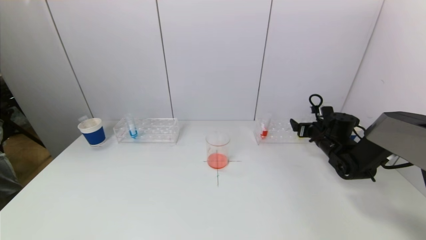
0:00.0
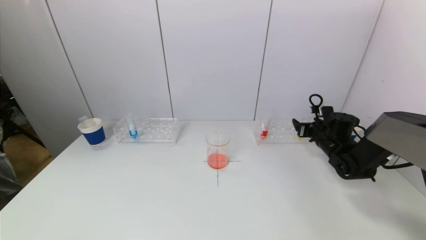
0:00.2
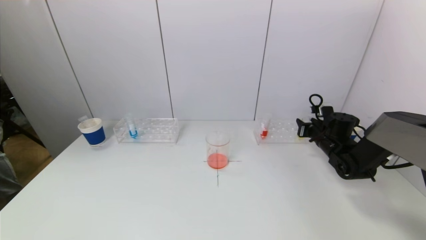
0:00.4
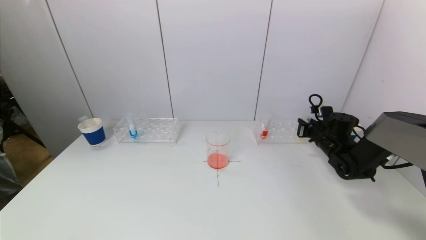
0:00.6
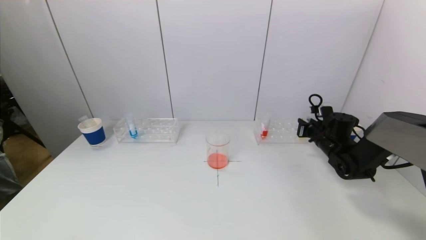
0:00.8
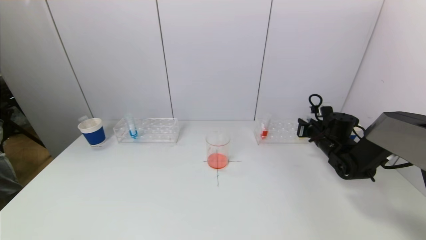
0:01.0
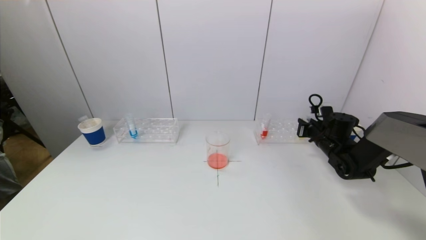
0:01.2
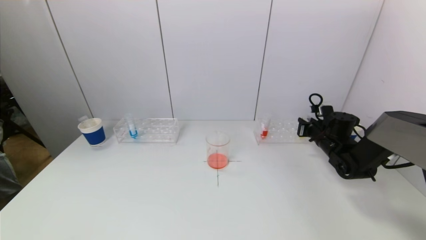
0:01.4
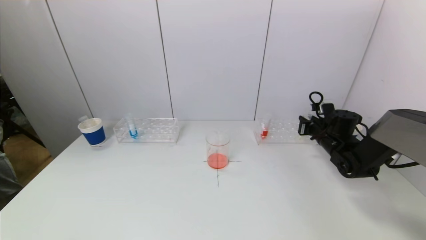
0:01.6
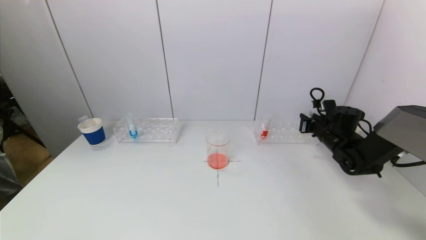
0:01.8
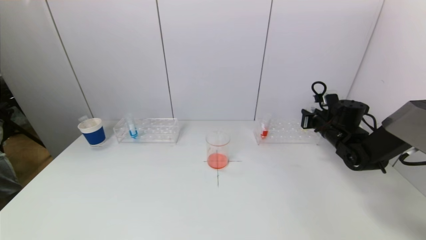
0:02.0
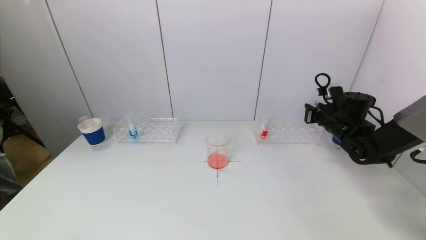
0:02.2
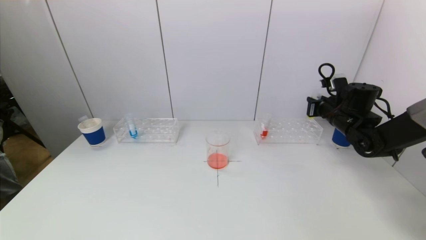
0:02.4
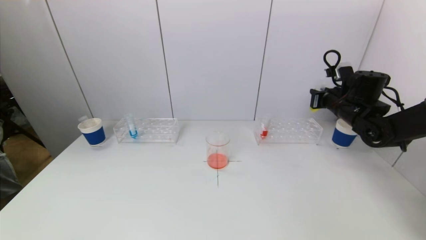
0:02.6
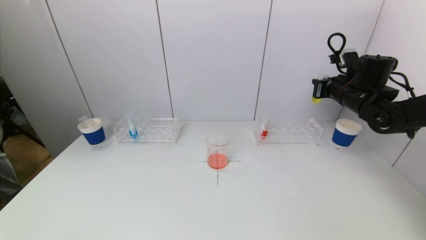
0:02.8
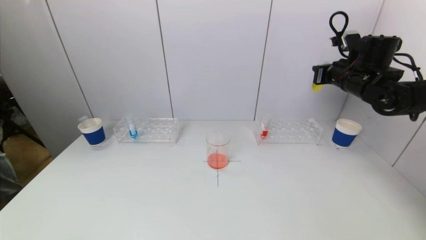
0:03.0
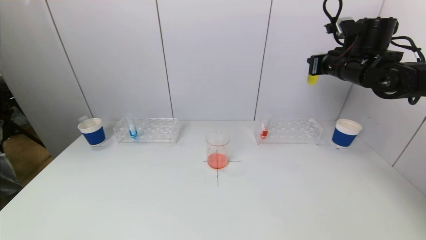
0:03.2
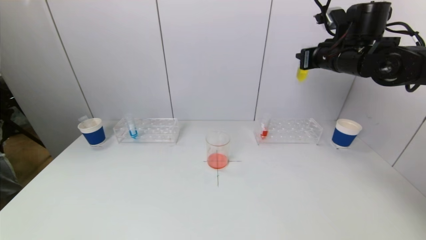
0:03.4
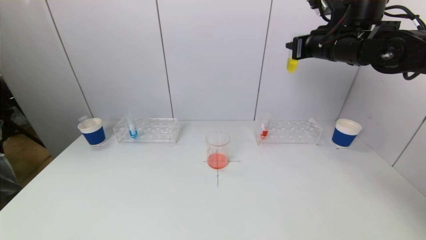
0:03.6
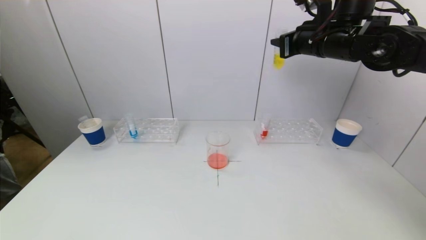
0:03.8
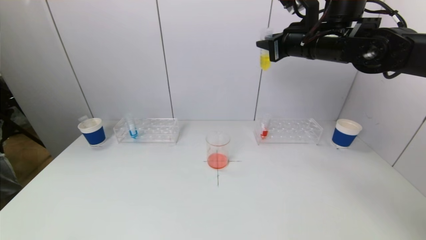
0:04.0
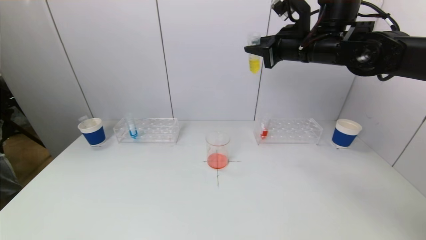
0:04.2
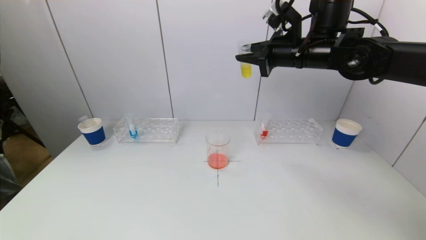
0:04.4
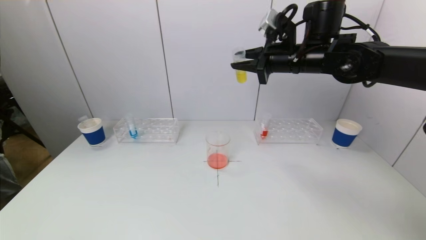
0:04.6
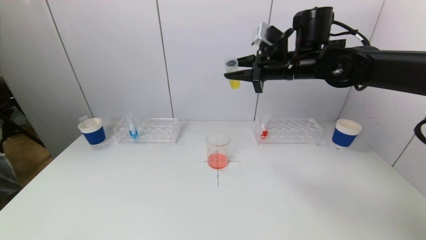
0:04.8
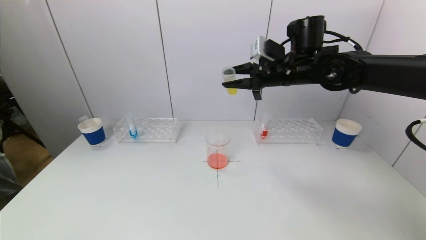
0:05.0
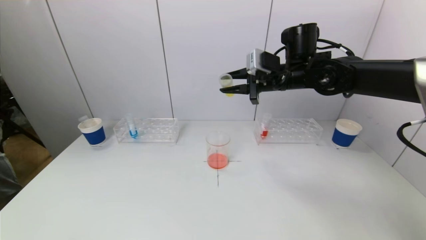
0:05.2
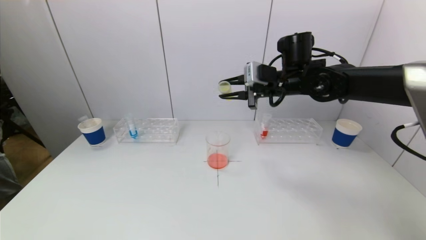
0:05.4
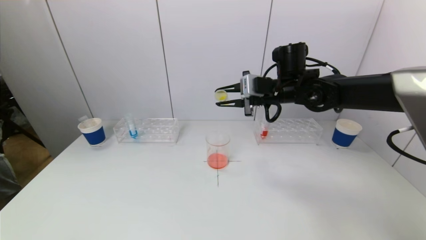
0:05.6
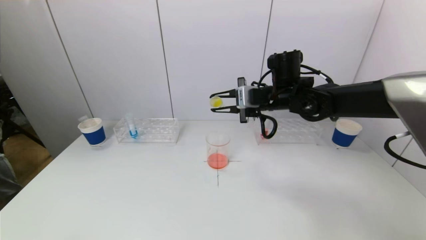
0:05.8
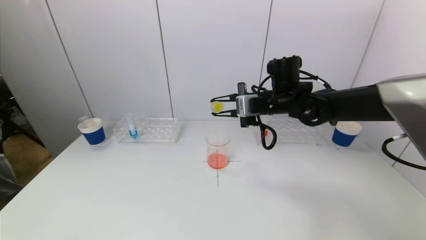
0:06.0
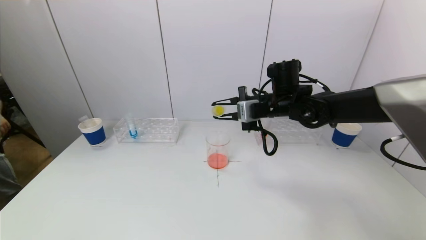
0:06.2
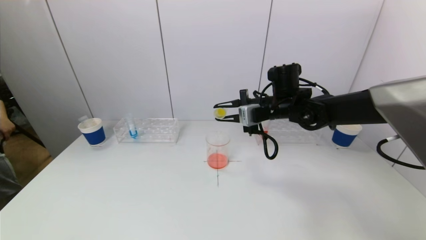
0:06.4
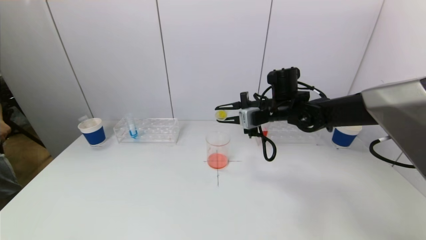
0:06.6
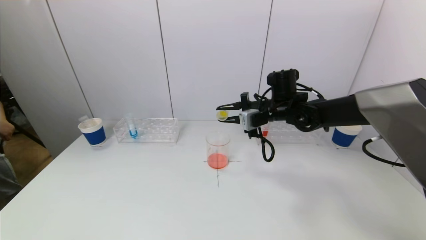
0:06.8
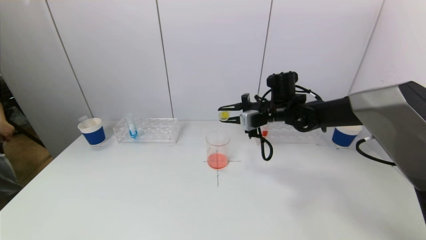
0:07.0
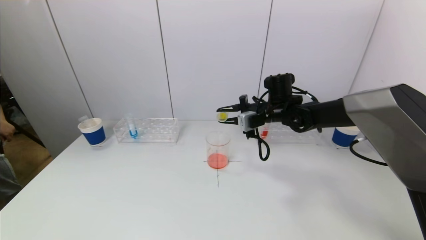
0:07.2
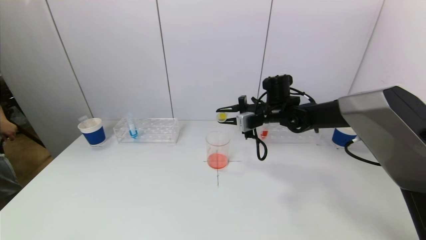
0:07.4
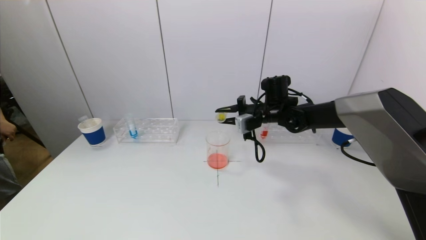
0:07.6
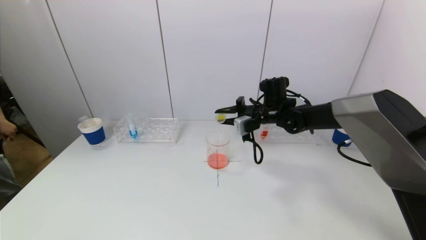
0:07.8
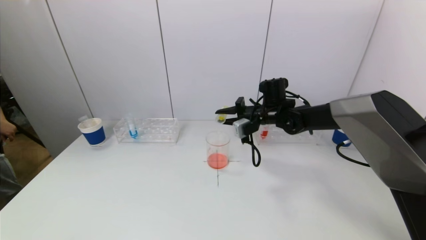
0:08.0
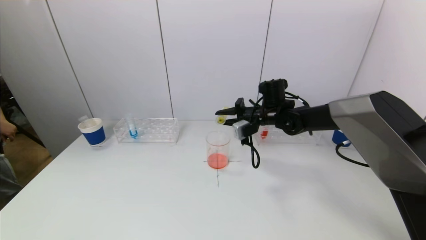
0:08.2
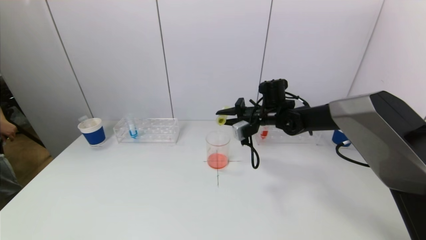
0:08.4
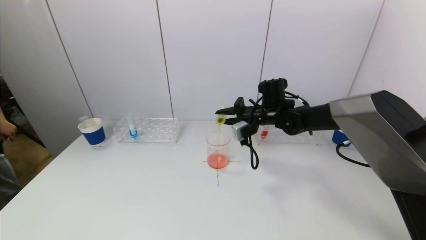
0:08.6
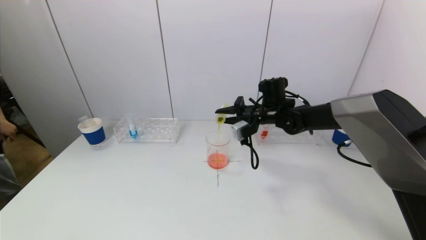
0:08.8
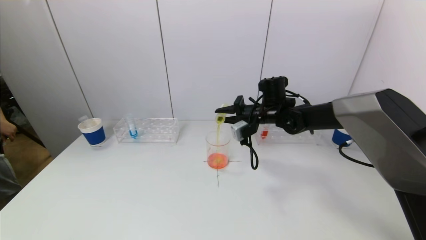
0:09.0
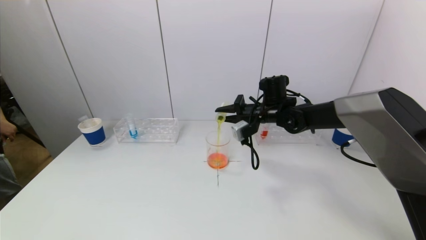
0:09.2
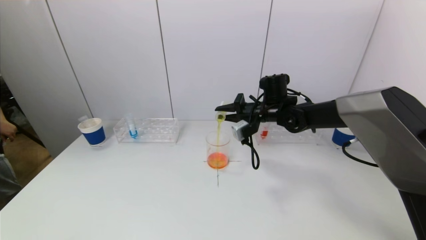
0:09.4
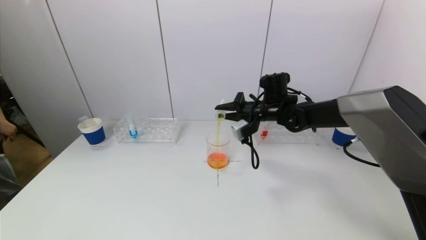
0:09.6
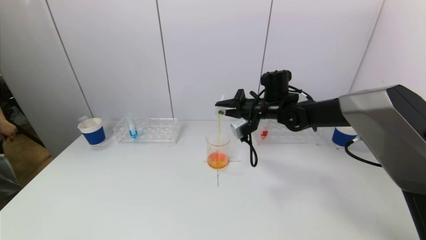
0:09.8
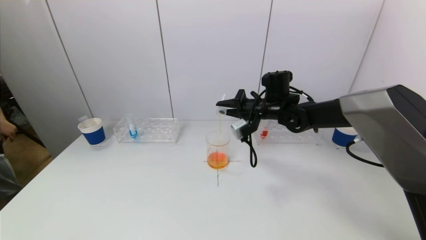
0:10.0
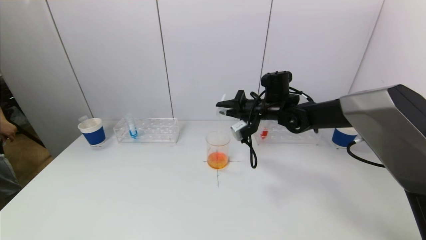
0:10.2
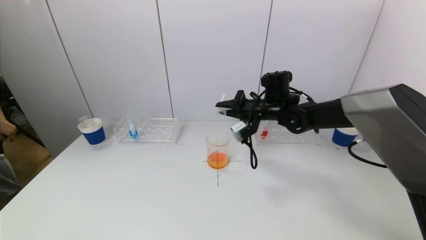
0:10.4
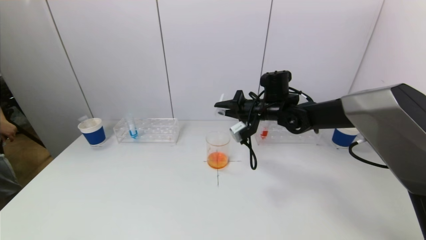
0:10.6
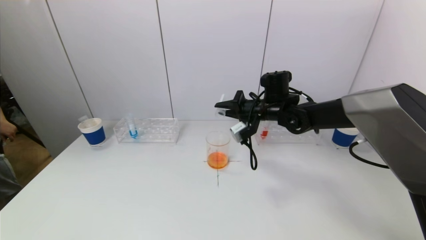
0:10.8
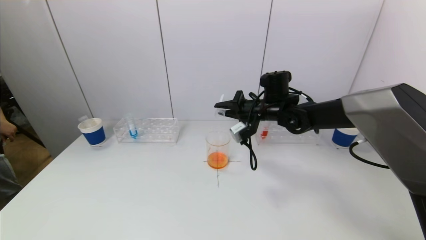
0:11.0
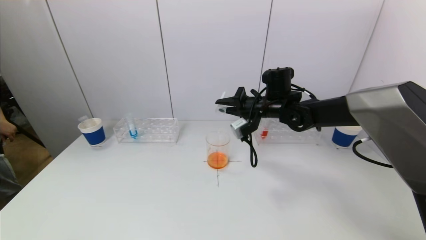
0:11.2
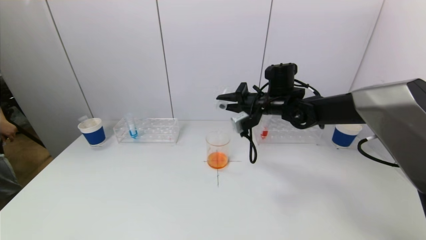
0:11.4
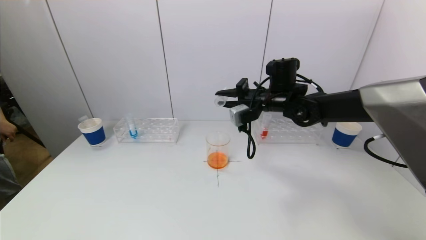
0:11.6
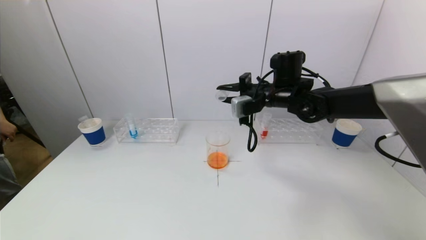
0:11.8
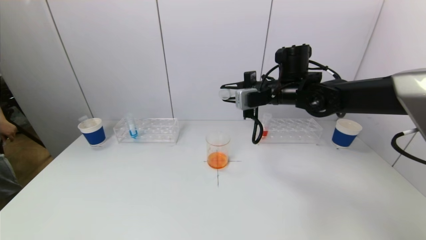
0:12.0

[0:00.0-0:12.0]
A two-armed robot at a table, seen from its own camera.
Task of the whole recording: pick up a test tube with pigment on left test tube rack and a test tube with pigment on right test tube rack by grippers and pour them into the beaker.
Step, 0:01.2 to 0:11.4: Pour the yellow reagent into the graduated cylinder with the right gripper.
0:00.0 to 0:01.6: The right gripper closes its fingers.
0:01.6 to 0:03.0: The right gripper heads upward, covering some 20 cm.
0:03.0 to 0:04.4: The right gripper travels to the left and upward by approximately 15 cm.
0:04.4 to 0:06.0: The right gripper goes approximately 10 cm downward.
0:06.0 to 0:07.6: The right gripper moves downward and forward, some 10 cm.
0:07.6 to 0:09.0: The grippers stay close to where they were, moving slightly.
0:09.0 to 0:10.4: The grippers move only a little.
0:10.4 to 0:12.0: The right gripper moves upward, roughly 5 cm.

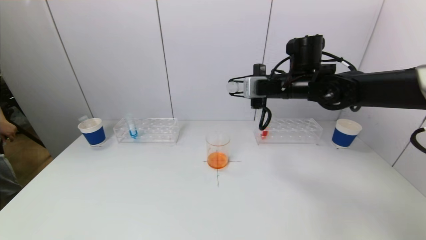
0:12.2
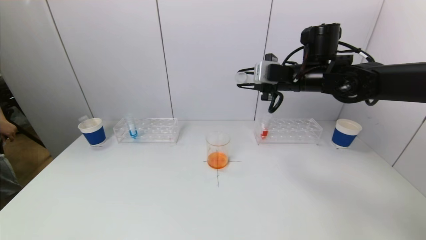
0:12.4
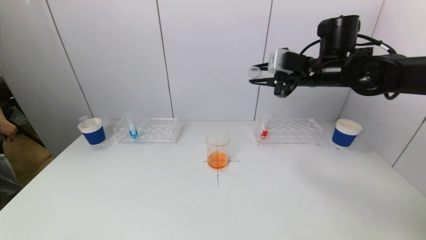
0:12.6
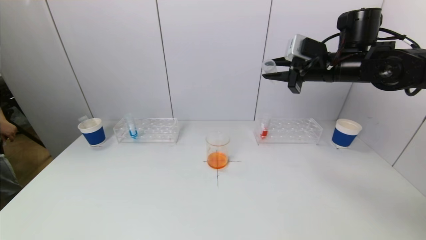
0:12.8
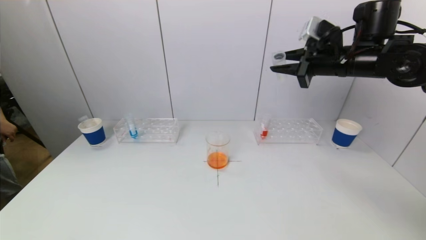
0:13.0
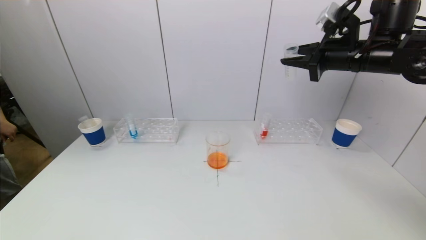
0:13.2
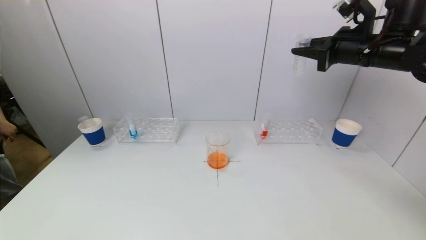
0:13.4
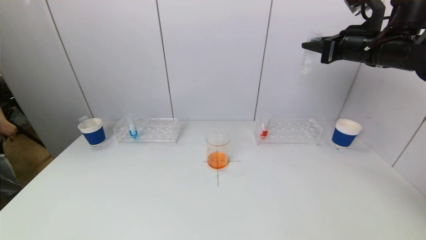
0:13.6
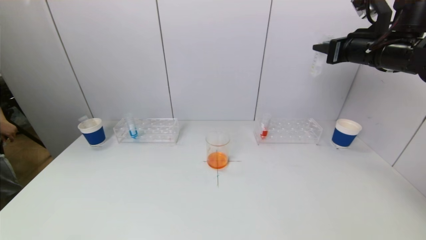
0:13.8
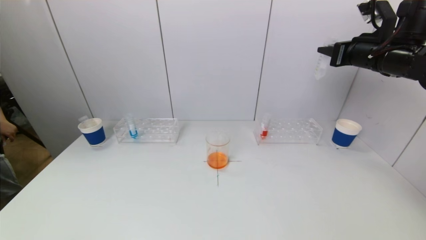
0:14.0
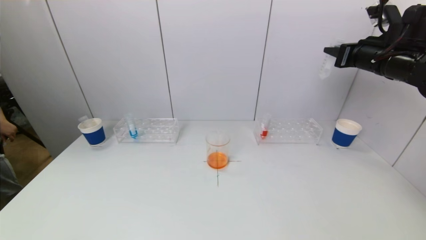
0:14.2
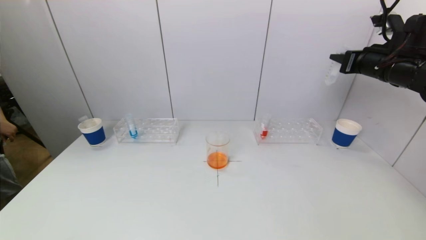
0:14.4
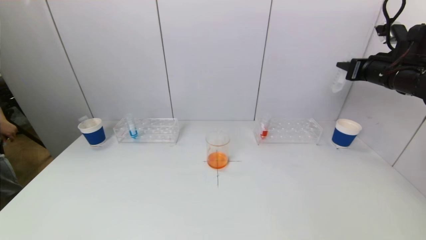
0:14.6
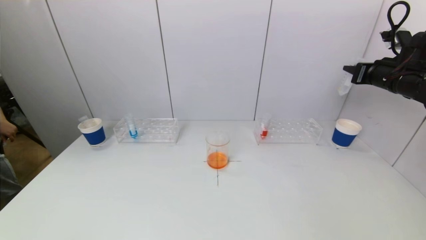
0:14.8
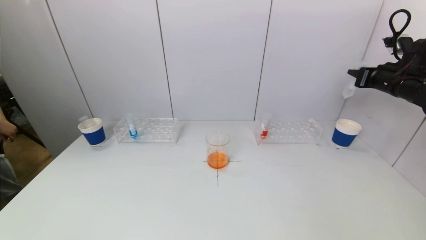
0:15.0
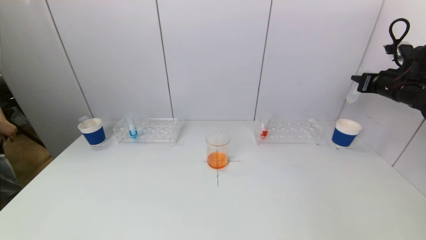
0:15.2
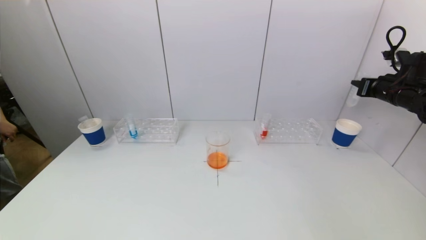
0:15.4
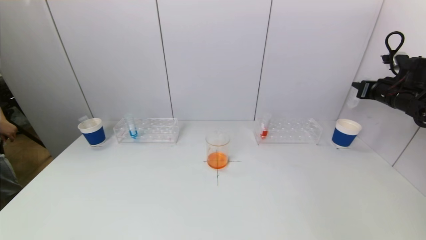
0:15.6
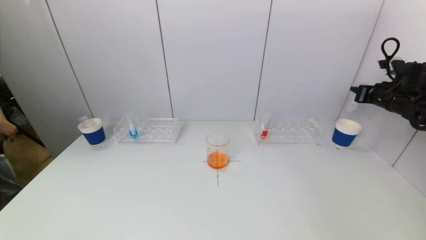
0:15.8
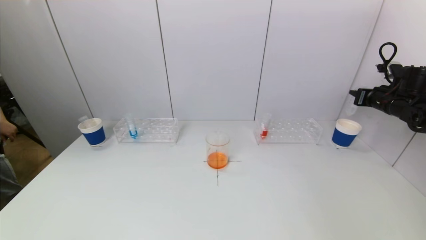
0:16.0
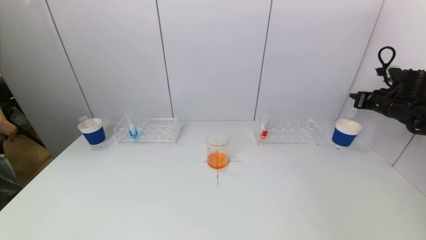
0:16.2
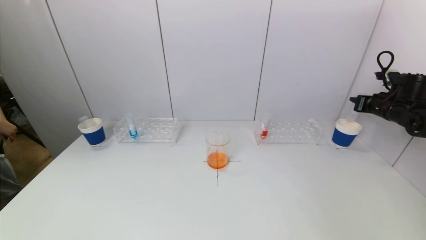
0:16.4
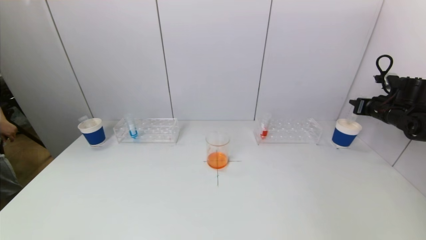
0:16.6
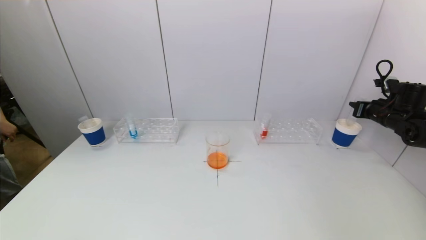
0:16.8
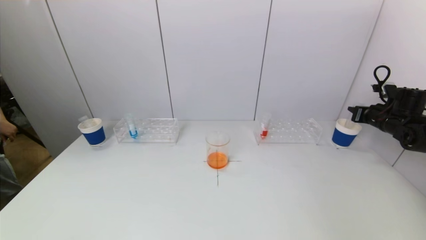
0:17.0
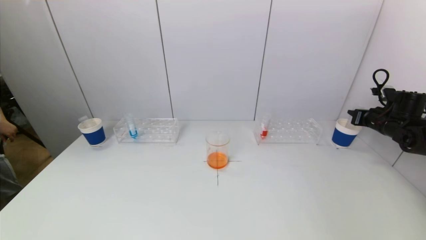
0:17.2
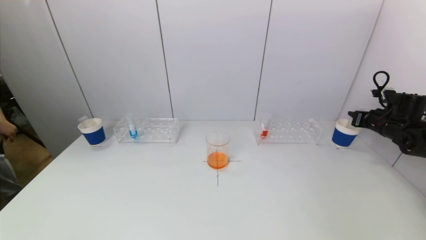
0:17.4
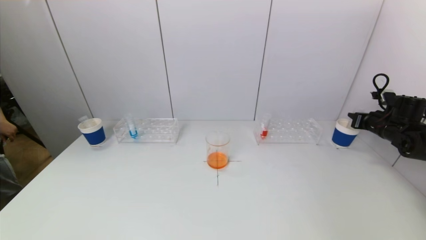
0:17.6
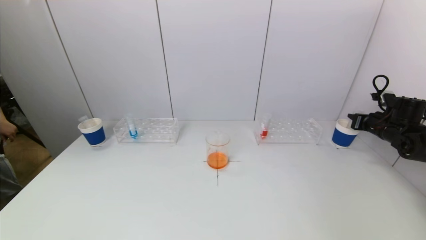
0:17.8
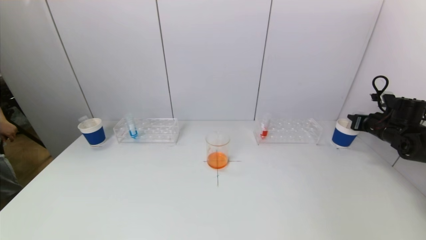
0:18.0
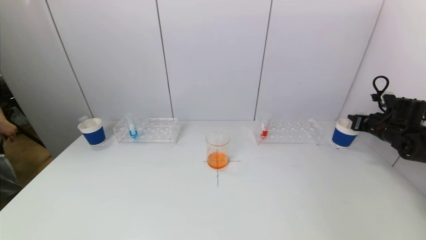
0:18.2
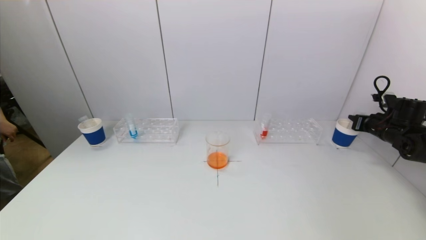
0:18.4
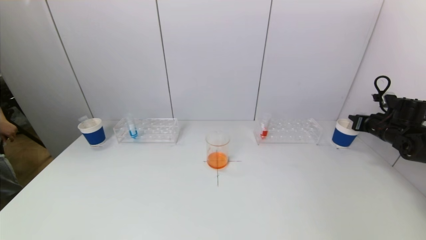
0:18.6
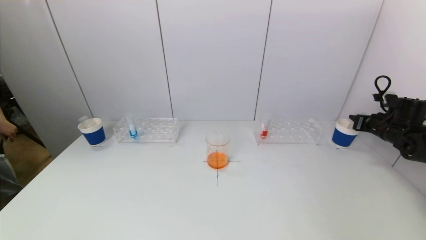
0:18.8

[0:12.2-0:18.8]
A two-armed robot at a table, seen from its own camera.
Task of the whole recording: pick up a test tube with pigment on left test tube rack and a test tube with pigment on right test tube rack by grippers and pour them into the beaker.
0:12.2 to 0:13.8: The right gripper goes some 15 cm to the right and upward.
0:13.8 to 0:15.4: The right gripper moves to the right and downward, some 15 cm.
0:15.4 to 0:17.2: The right gripper travels downward by roughly 10 cm.
0:17.2 to 0:18.8: There are only small adjustments of the grippers.
